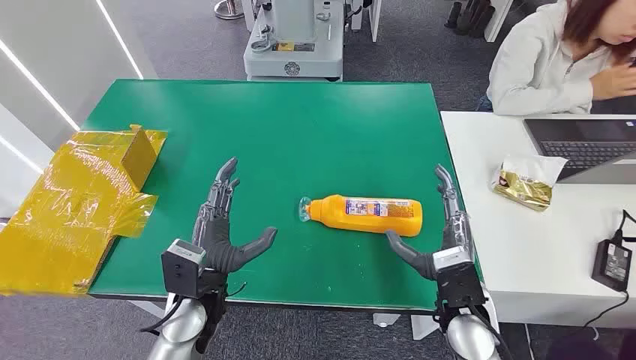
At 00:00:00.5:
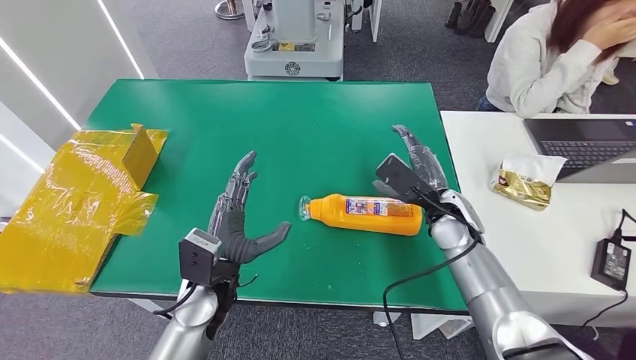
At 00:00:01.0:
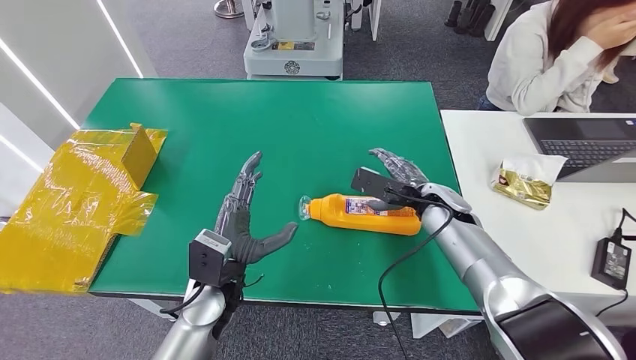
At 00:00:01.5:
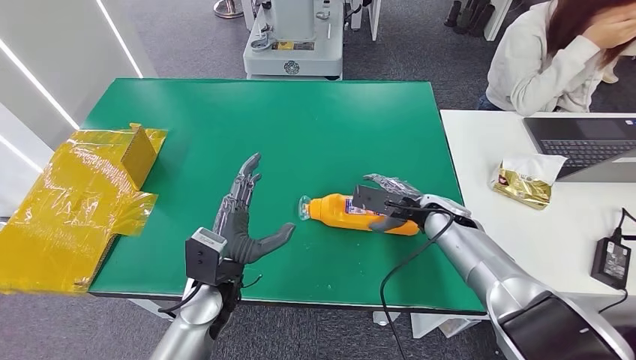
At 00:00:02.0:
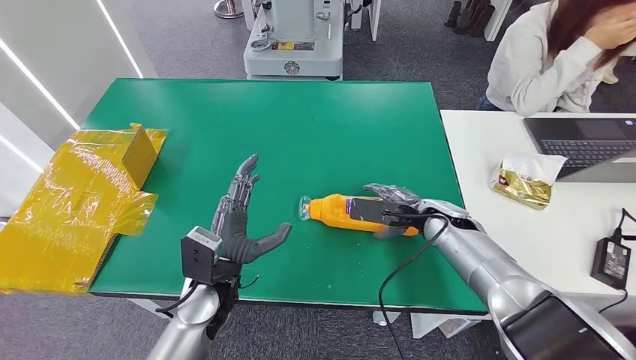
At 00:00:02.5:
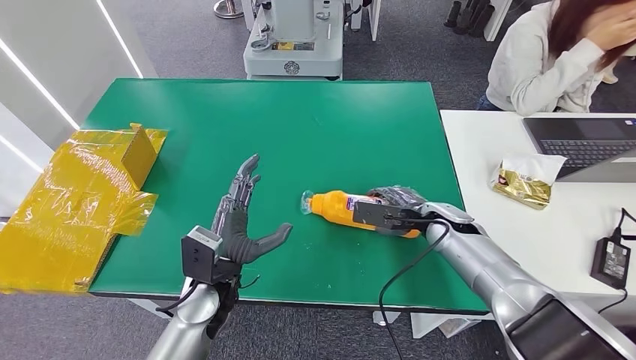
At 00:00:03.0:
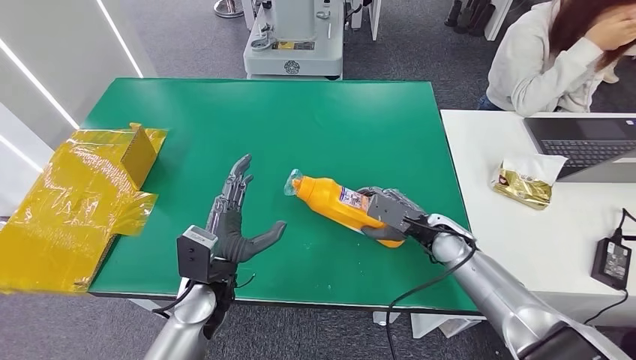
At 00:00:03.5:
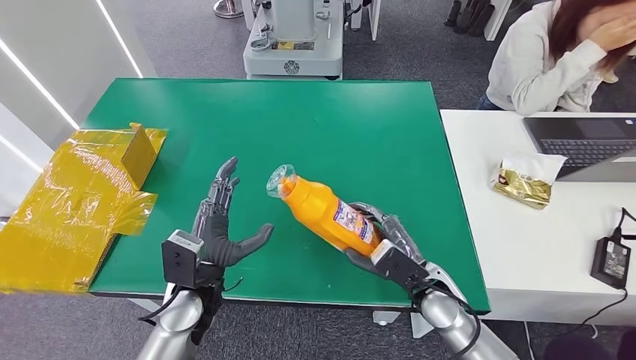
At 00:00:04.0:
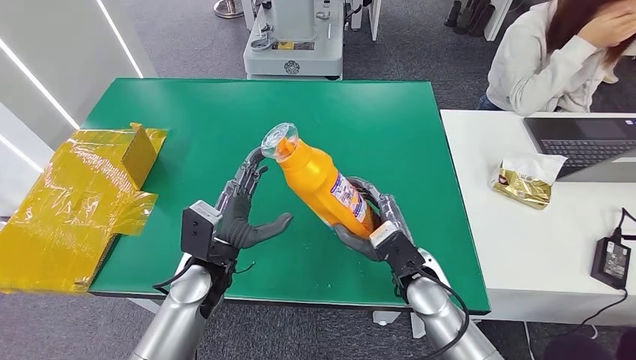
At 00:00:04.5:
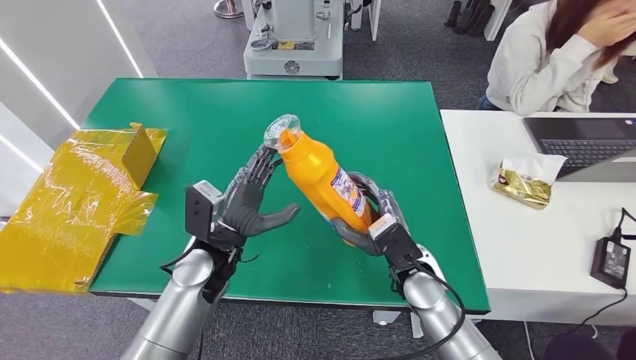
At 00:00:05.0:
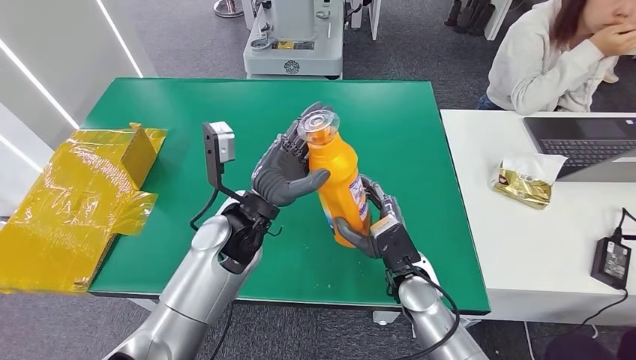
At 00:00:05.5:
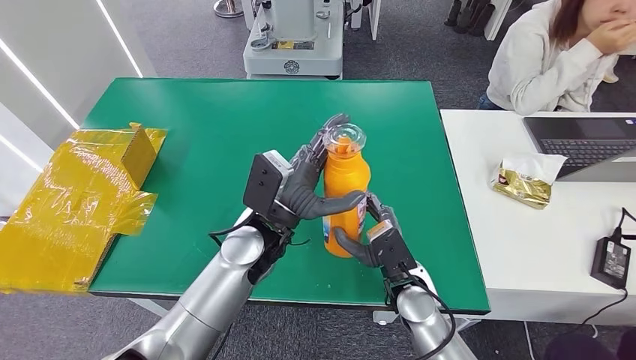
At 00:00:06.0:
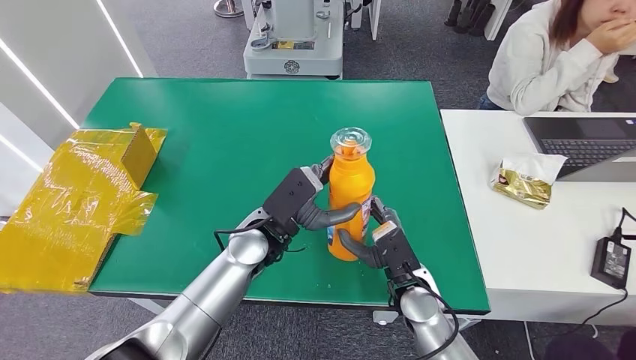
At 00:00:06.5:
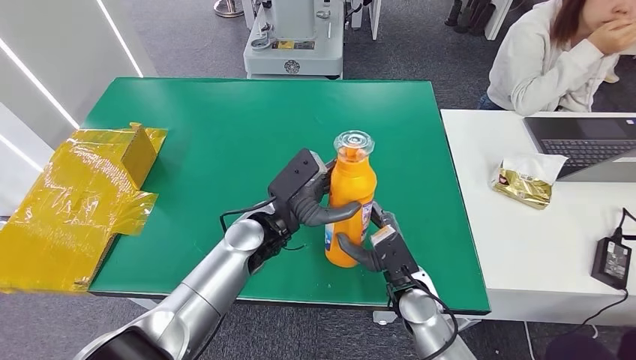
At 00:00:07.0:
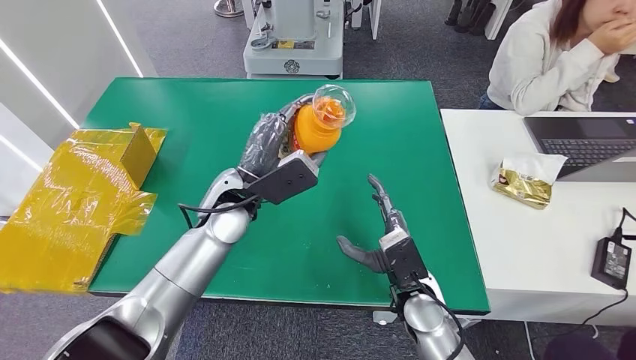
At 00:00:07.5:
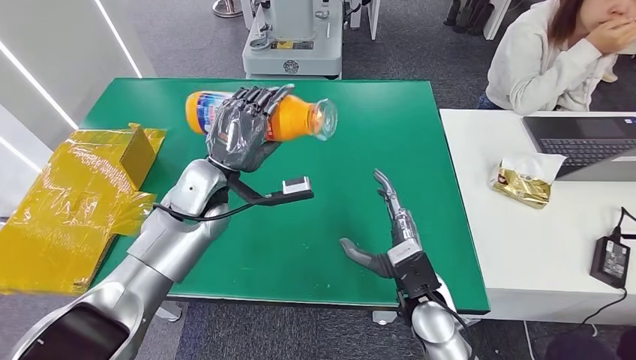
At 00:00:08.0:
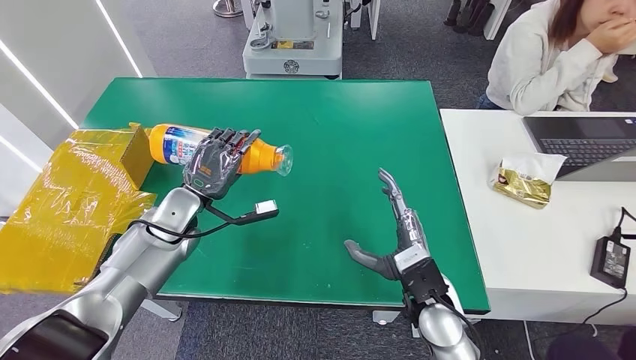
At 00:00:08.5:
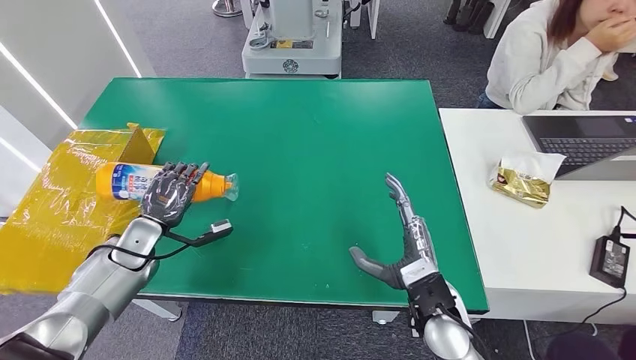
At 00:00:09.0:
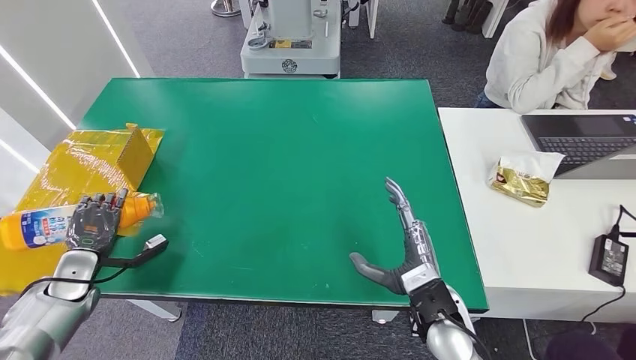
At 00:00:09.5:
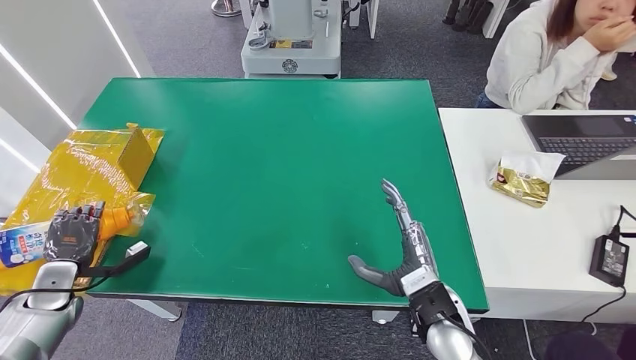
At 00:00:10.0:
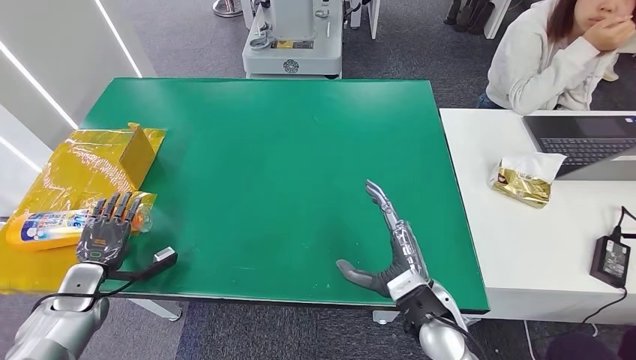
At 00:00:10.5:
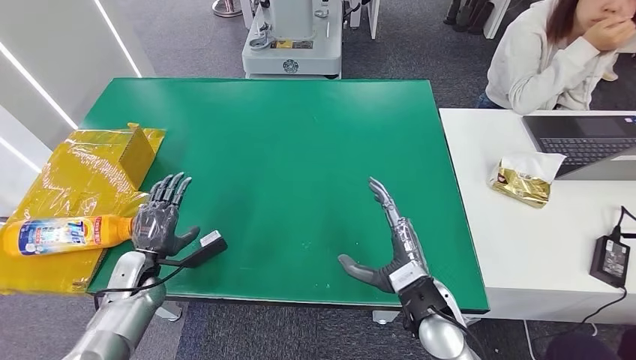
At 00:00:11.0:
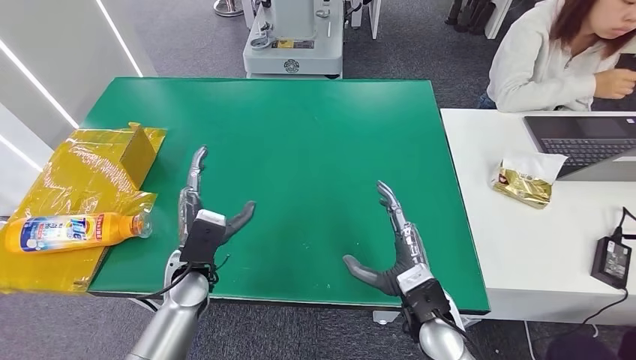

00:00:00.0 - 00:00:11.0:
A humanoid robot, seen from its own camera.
Step, 00:00:00.0 - 00:00:03.5: Pick up the bottle from the table.
Step, 00:00:04.5 - 00:00:11.0: Turn the bottle to the front side.
00:00:02.0 - 00:00:03.5: The right hand travels backward by approximately 15 cm.
00:00:03.5 - 00:00:05.5: The left hand moves to the right, upward and forward, roughly 15 cm. The right hand heads to the left, covering approximately 5 cm.
